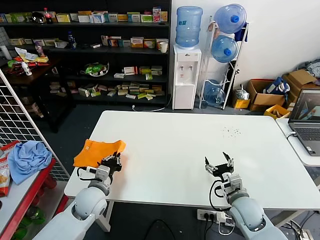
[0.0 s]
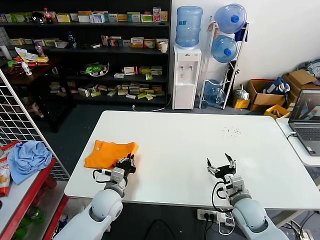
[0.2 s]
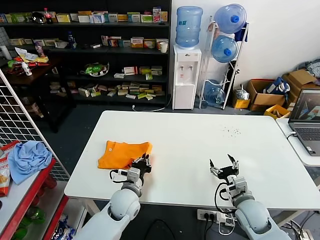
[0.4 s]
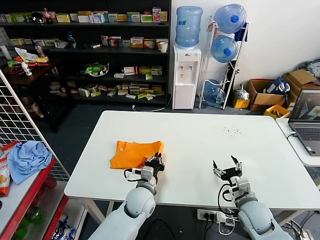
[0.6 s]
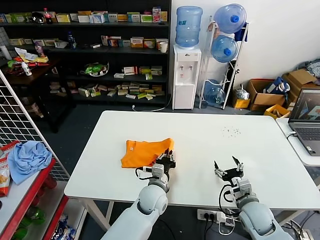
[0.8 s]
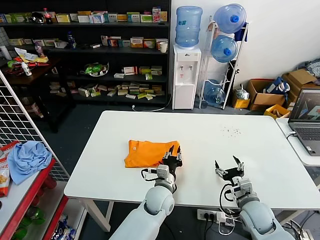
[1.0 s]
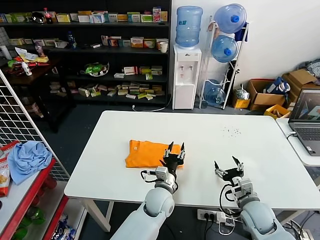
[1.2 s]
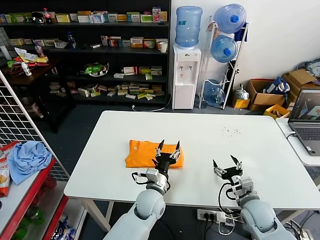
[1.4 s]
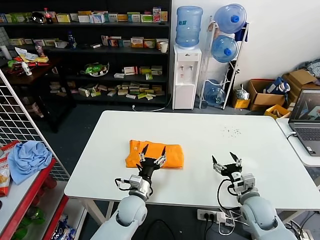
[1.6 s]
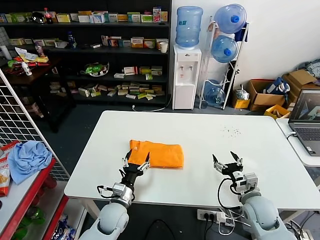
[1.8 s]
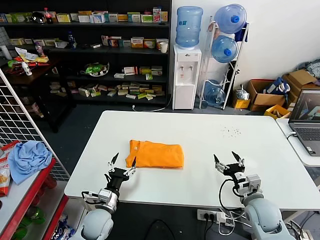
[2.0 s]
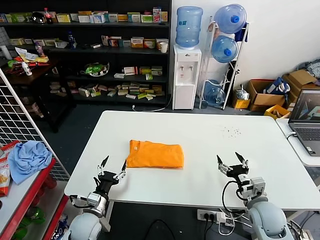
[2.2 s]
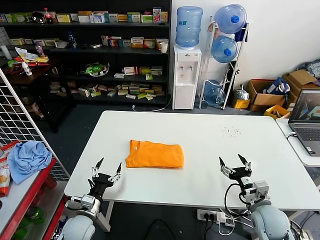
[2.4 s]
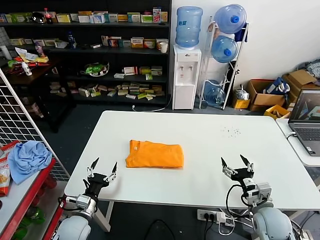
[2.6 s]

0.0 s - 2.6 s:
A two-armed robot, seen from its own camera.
Task of the whole recording: fold and organize the clothes.
0.0 s - 1.2 s: The left gripper is displaced to the right by some 25 cm, and opens its fingers.
1.2 s - 2.6 s: The left gripper shifts some 30 cm to the left, and opens its fingers.

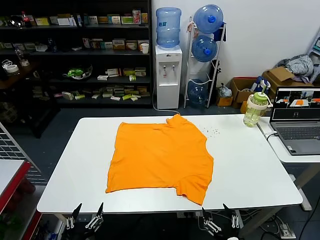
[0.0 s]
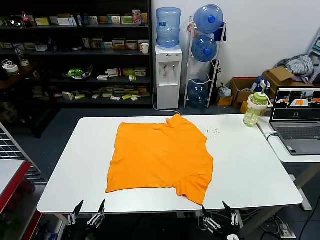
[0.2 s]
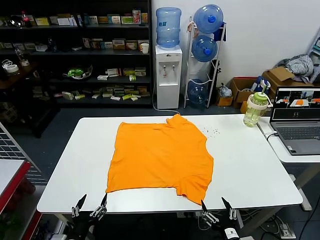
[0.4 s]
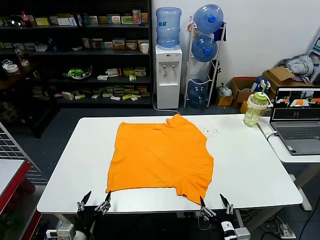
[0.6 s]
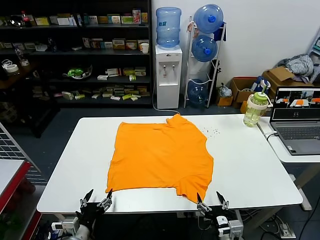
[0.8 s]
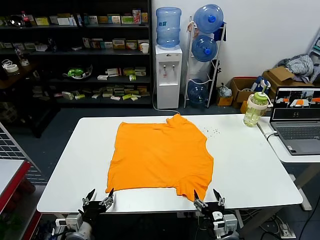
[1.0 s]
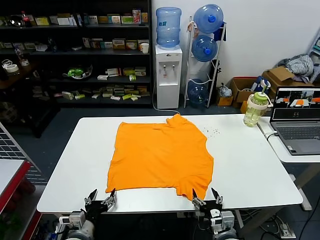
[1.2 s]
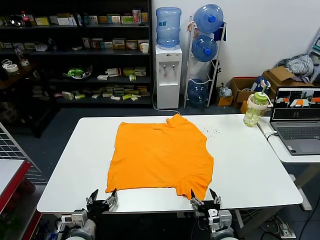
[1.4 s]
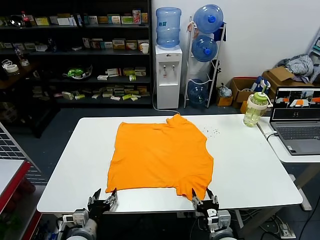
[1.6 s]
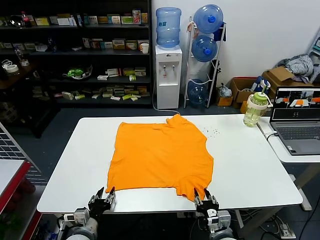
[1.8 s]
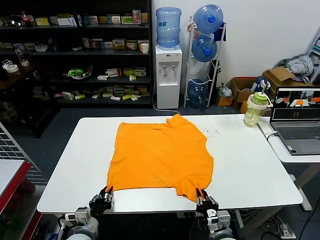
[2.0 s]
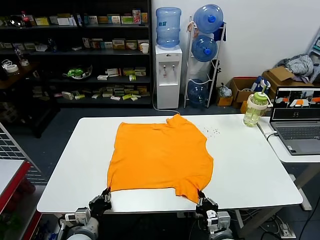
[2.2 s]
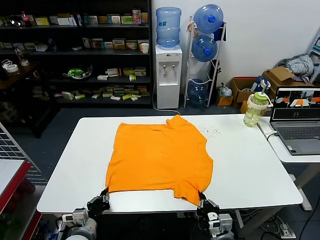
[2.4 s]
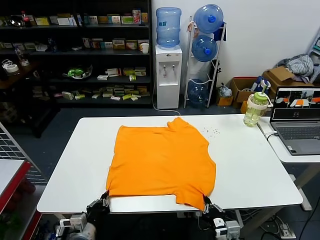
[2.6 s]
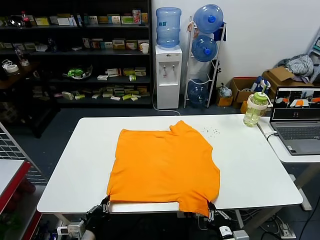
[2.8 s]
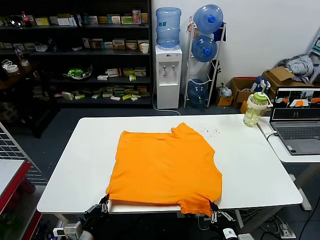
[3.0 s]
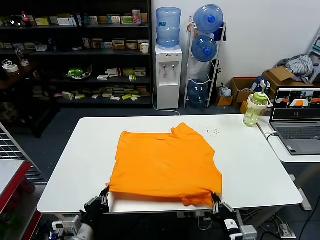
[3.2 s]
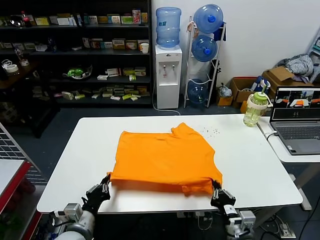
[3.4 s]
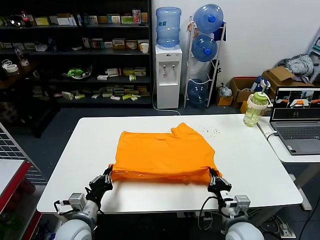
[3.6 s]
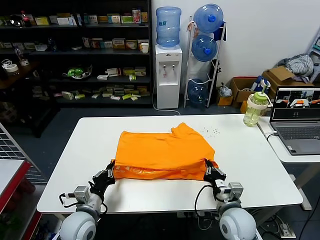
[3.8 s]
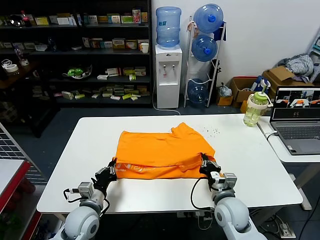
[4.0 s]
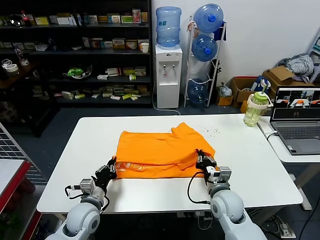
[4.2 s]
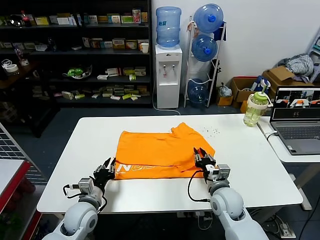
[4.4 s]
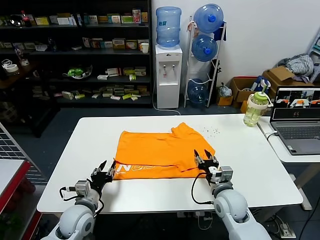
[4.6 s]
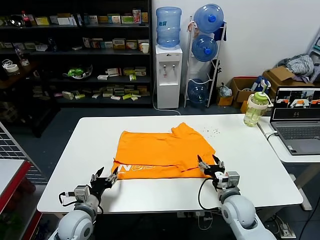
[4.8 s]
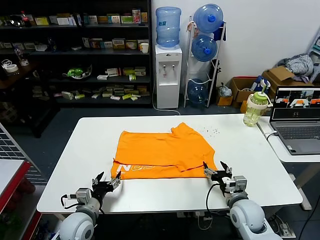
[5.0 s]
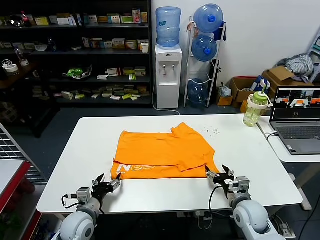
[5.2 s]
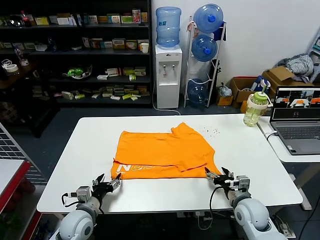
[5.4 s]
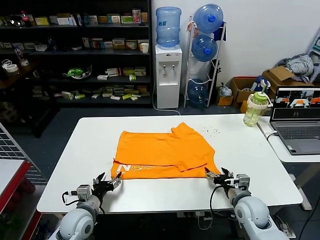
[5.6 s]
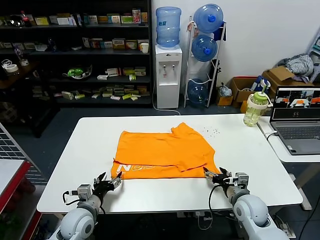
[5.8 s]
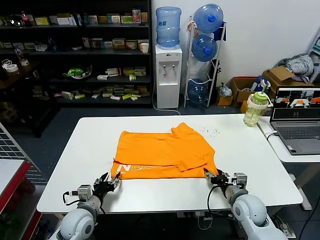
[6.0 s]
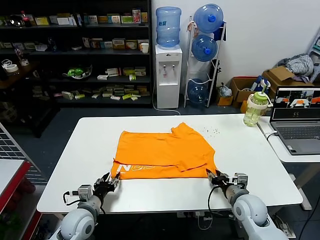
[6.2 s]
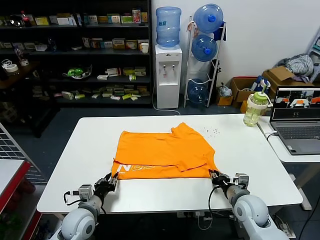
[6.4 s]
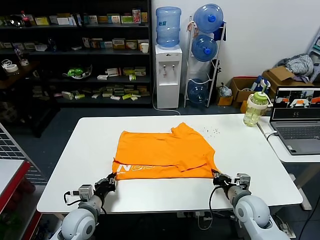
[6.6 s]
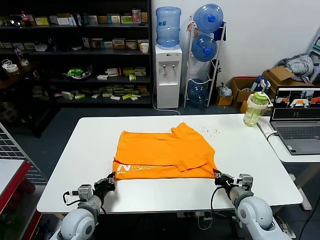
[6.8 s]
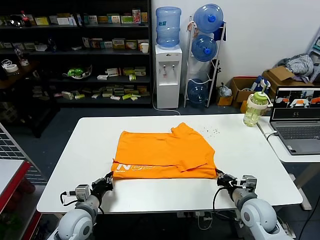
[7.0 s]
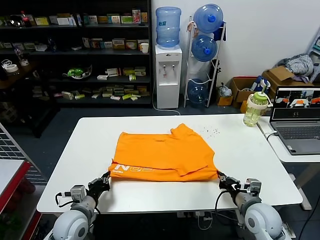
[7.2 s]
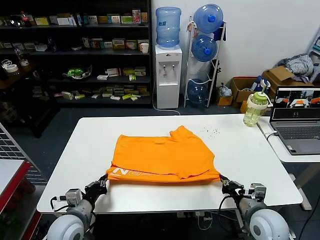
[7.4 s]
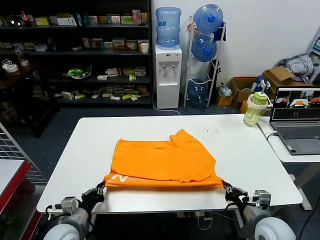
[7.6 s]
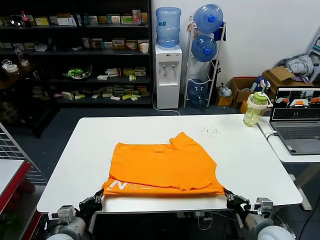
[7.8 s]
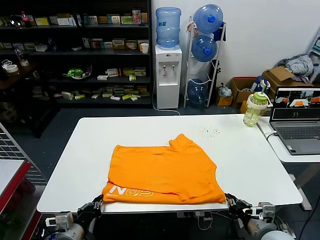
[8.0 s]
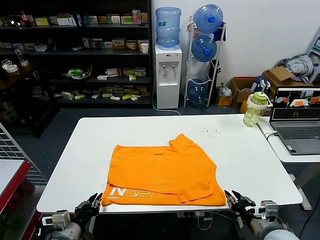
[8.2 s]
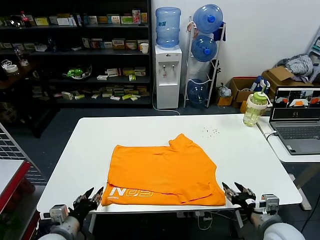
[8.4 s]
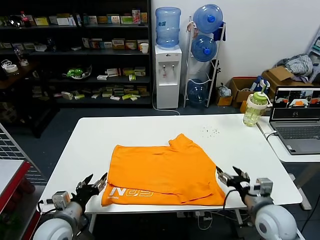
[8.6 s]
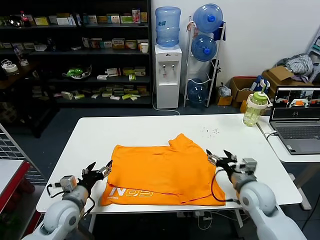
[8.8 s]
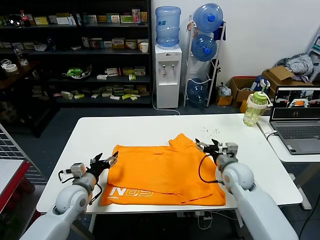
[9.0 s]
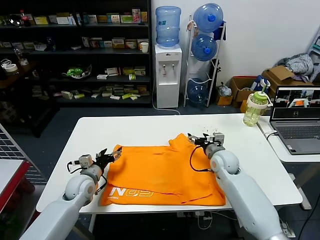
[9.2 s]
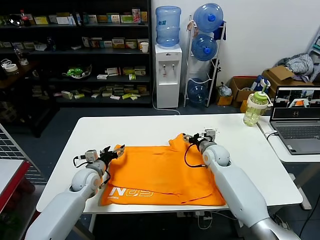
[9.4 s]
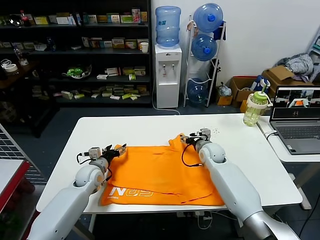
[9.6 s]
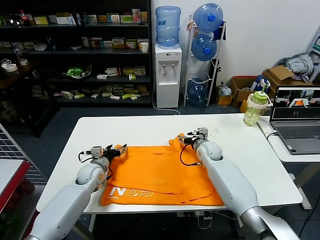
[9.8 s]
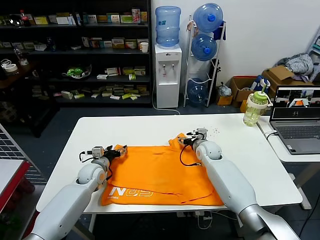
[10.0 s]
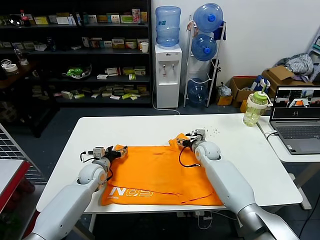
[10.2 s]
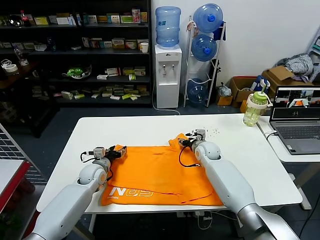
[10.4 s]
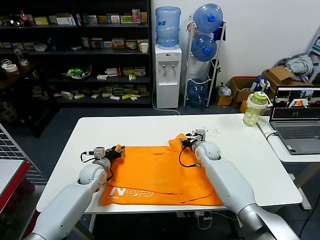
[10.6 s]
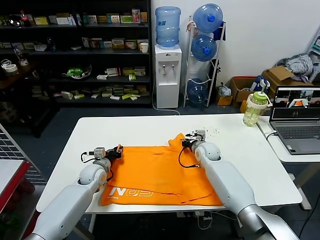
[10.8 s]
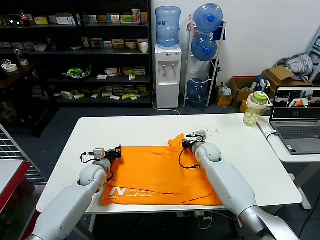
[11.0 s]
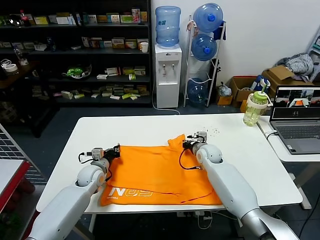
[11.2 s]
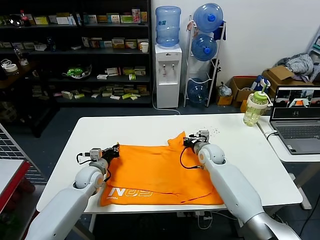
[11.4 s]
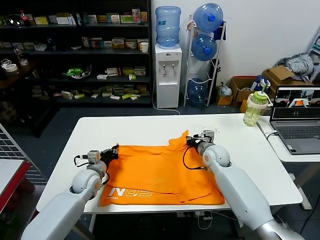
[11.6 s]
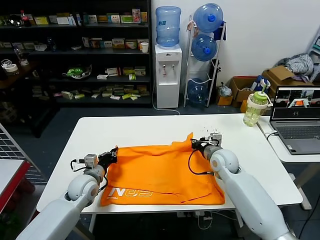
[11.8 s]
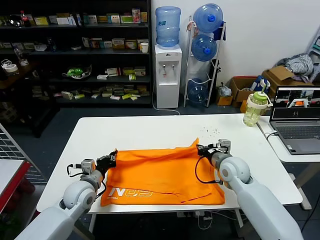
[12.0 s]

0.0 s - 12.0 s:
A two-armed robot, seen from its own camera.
Task of the whole recording: fold and organize the clothes.
Step, 0.0 s - 2.0 s: use both grippers simultaneously to clamp the lower edge of the clothing fabric.
Step, 2.4 s - 4.4 s: use both grippers to drag the lower edge of the fabric forward and fold it over the upper edge.
Step, 4.6 s - 8.0 s: Drag the clothes downward with both gripper.
Step, 8.2 s - 10.8 s: use both grippers simultaneously to clamp the upper edge of the clothing fabric.
1.6 s - 3.0 s: The right gripper goes approximately 10 cm backward and upward, and closes; the left gripper moves approximately 5 cm, and closes up.
3.0 s - 4.4 s: The left gripper is displaced forward by roughly 15 cm. The right gripper shifts roughly 20 cm forward.
4.4 s - 6.0 s: The left gripper opens up. Meanwhile the right gripper is displaced to the right by about 10 cm, and opens.
6.0 s - 7.6 s: The right gripper travels backward and upward by roughly 10 cm, and closes. Meanwhile the left gripper changes place by about 5 cm, and closes its fingers.
7.6 s - 9.0 s: The left gripper moves forward, some 10 cm, and opens up; the right gripper moves forward, some 15 cm, and opens up.
9.0 s - 10.4 s: The left gripper is displaced forward and downward by some 15 cm. The right gripper is displaced forward and to the left by about 15 cm.
10.4 s - 12.0 s: The right gripper shifts approximately 15 cm backward, upward and to the right, and closes, while the left gripper heads backward, covering about 10 cm, and closes its fingers.

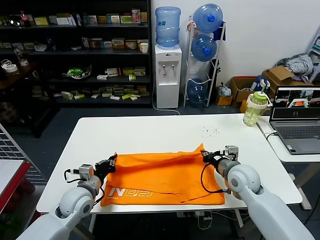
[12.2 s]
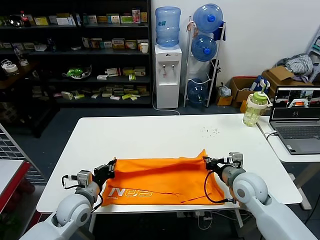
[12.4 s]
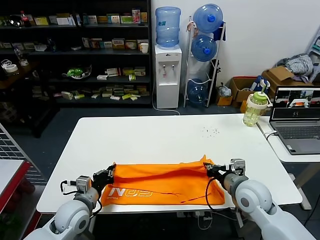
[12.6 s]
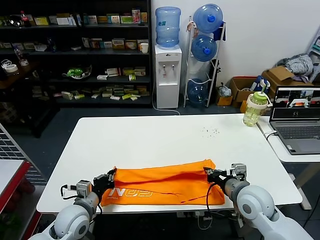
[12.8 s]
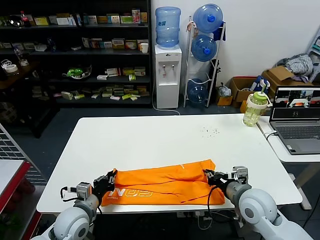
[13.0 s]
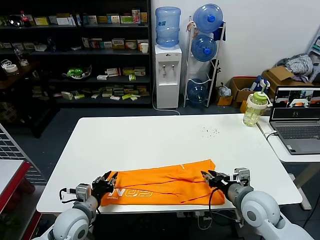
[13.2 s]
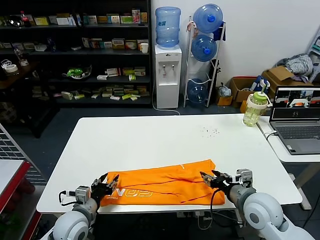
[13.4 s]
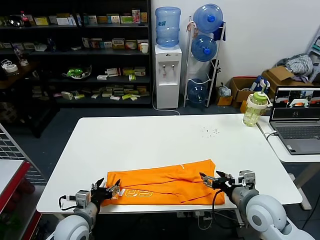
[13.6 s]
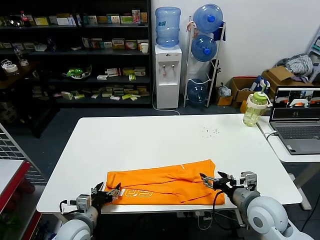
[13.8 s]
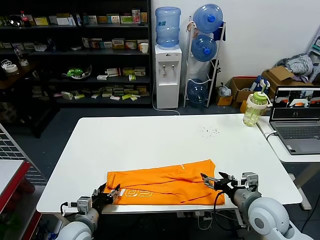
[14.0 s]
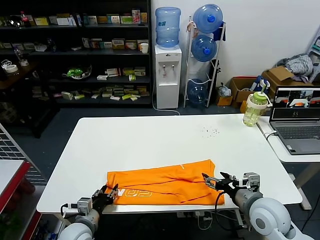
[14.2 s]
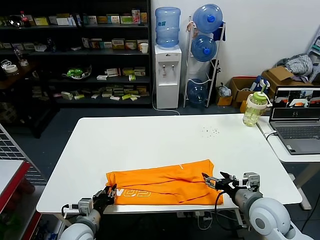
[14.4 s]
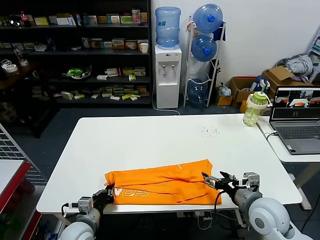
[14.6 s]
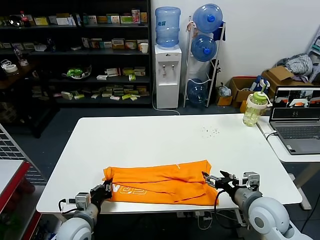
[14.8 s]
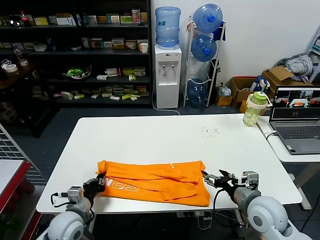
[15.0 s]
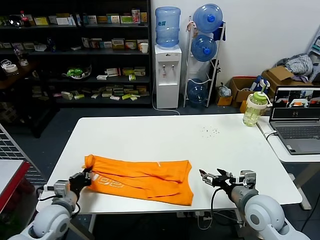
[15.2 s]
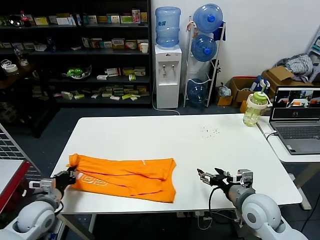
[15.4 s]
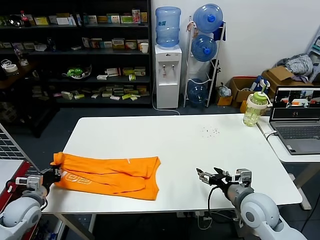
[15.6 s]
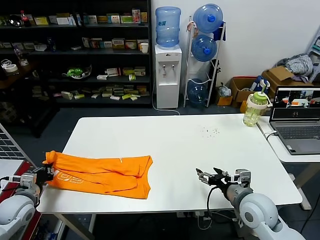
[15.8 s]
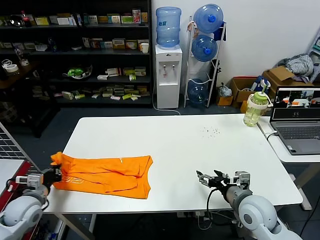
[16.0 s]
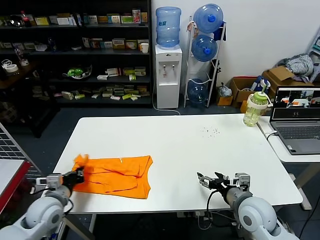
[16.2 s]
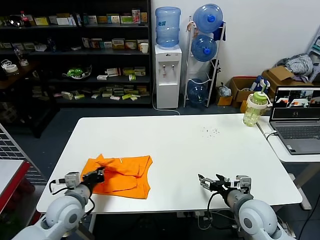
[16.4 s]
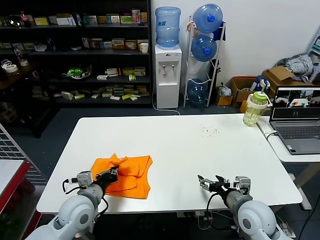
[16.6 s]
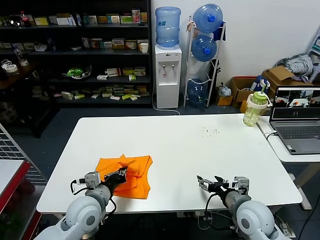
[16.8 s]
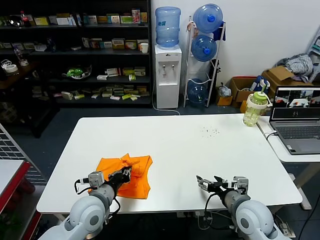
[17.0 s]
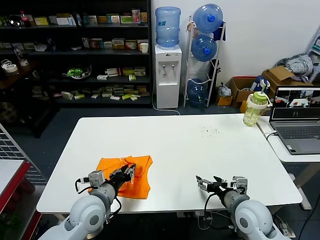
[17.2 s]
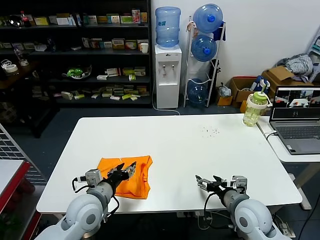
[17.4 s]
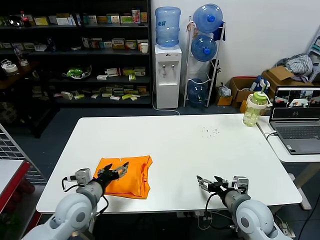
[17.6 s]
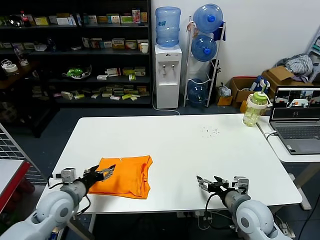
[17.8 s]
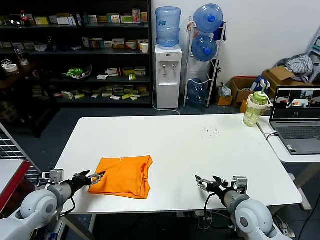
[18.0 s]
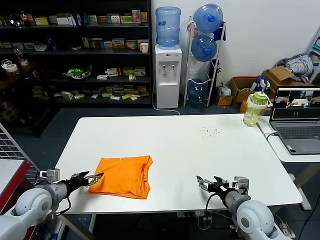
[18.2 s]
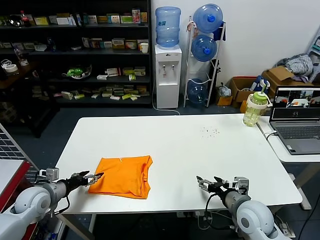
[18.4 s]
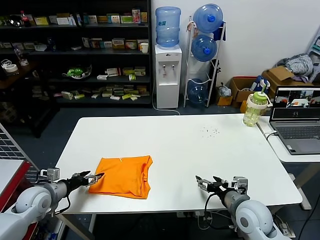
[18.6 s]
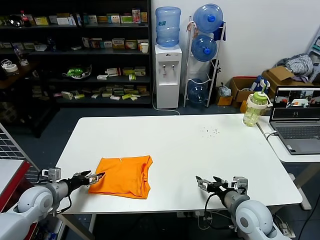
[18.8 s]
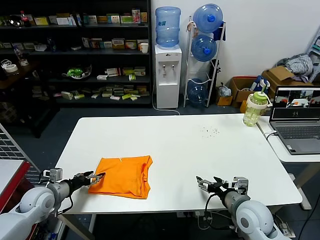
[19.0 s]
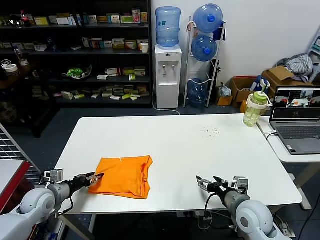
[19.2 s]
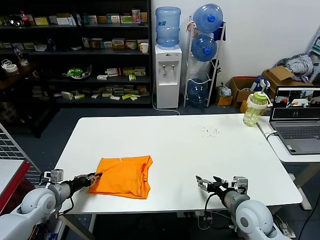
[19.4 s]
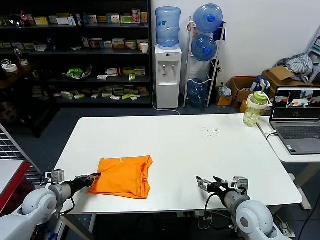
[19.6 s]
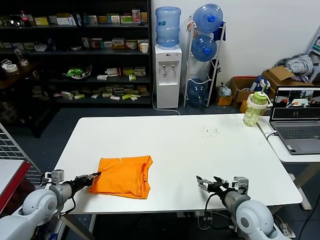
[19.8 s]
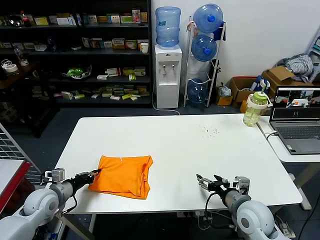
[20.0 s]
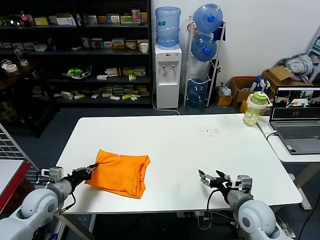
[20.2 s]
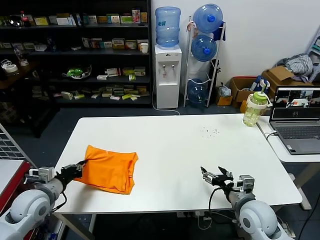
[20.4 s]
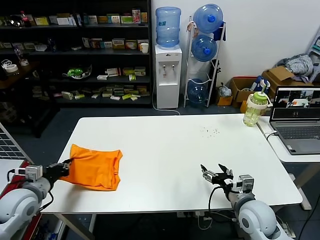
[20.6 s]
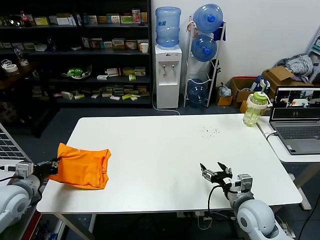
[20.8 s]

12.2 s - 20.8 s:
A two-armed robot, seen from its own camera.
Task of the whole recording: fold and organize the clothes.
Step, 13.2 s - 14.4 s: use the left gripper to clamp the left edge of the fabric.
Step, 14.8 s - 17.4 s: use the left gripper to drag the left edge of the fabric to the left and folds it over the right edge.
12.2 s - 13.6 s: Both grippers move backward, some 10 cm. The right gripper opens its fingers, while the left gripper opens.
13.6 s - 15.0 s: The left gripper closes its fingers.
15.0 s - 16.6 s: The left gripper heads upward, covering some 5 cm, and moves some 20 cm to the left and comes back.
16.6 s - 18.0 s: The left gripper is displaced to the left by roughly 10 cm, and opens up.
18.0 s - 19.4 s: The left gripper moves to the left, roughly 5 cm, and closes its fingers.
19.4 s - 20.8 s: The left gripper moves upward, some 10 cm, and closes.
